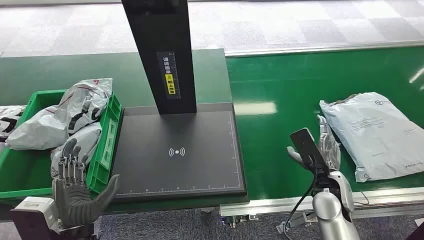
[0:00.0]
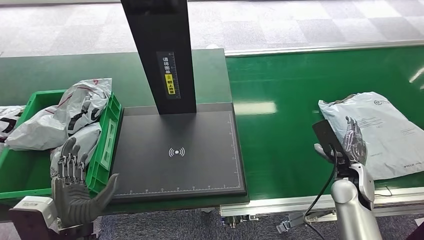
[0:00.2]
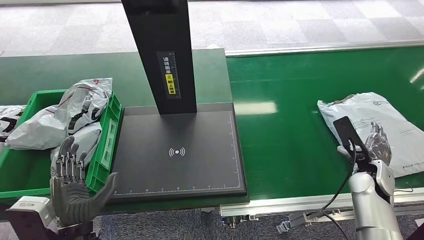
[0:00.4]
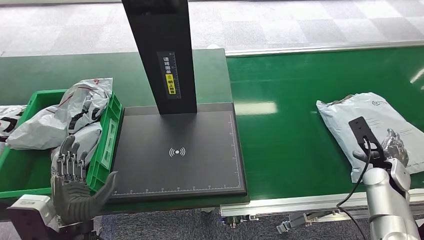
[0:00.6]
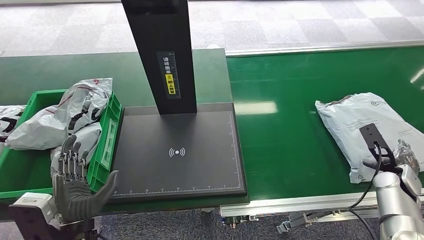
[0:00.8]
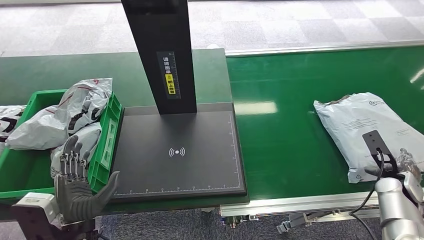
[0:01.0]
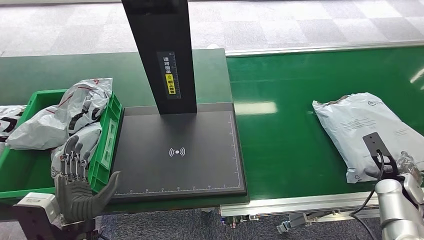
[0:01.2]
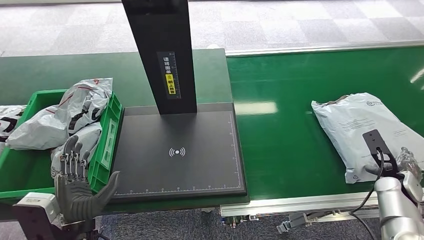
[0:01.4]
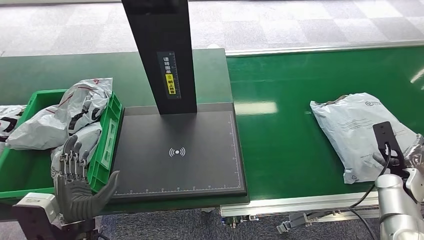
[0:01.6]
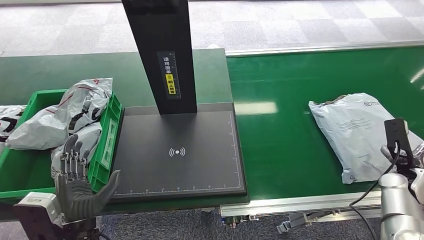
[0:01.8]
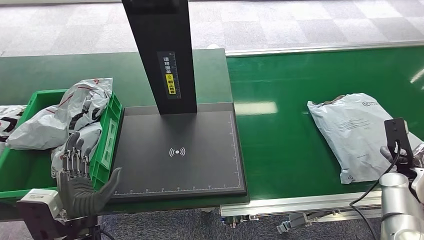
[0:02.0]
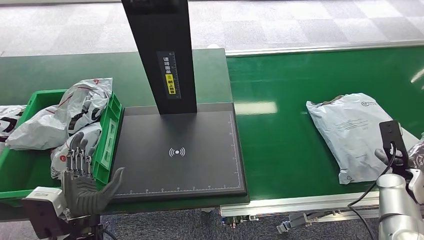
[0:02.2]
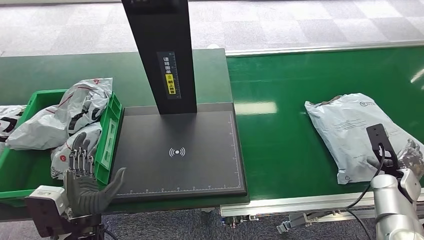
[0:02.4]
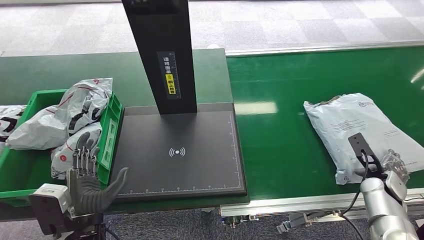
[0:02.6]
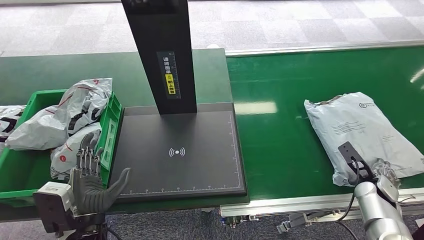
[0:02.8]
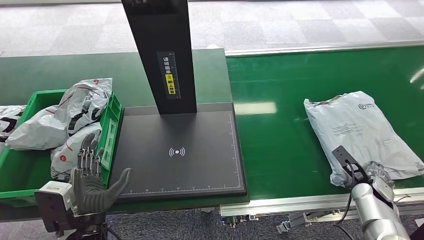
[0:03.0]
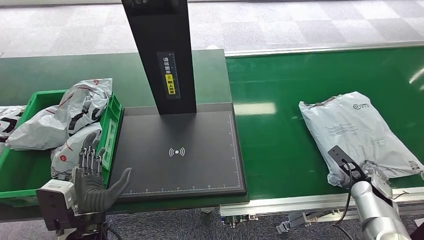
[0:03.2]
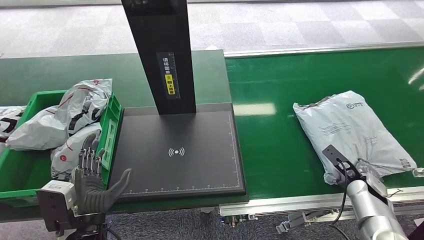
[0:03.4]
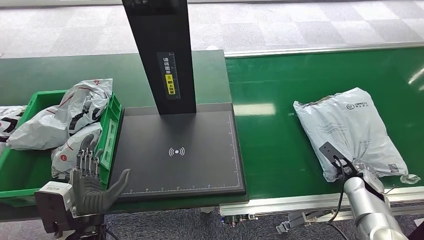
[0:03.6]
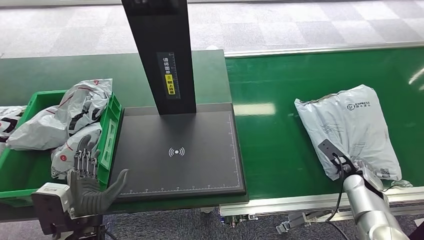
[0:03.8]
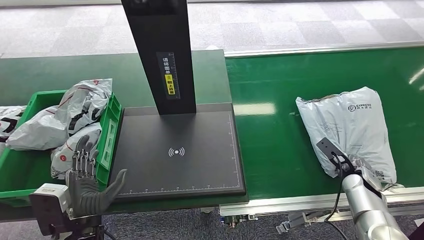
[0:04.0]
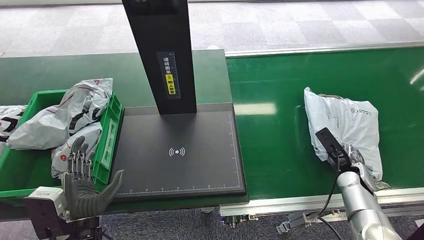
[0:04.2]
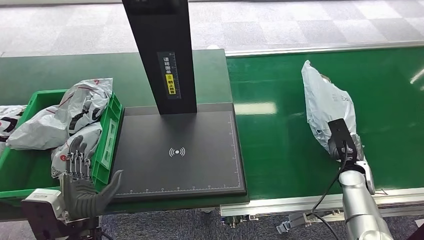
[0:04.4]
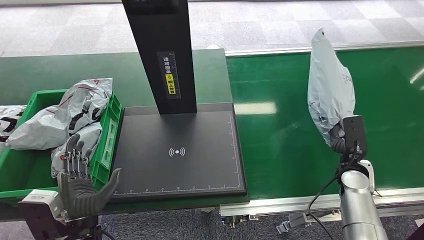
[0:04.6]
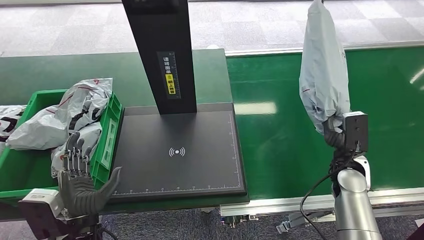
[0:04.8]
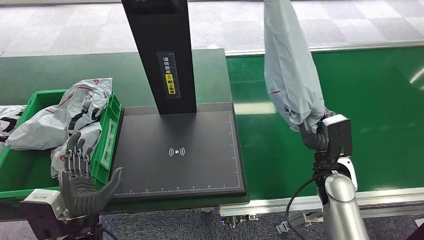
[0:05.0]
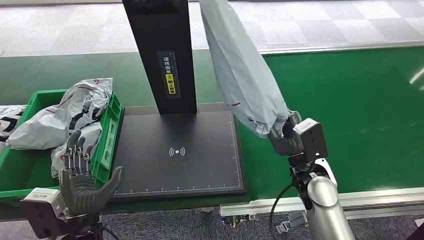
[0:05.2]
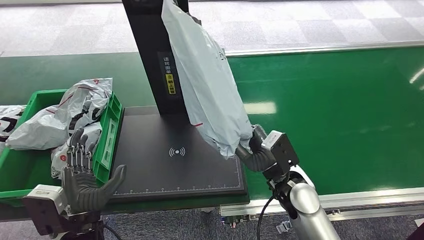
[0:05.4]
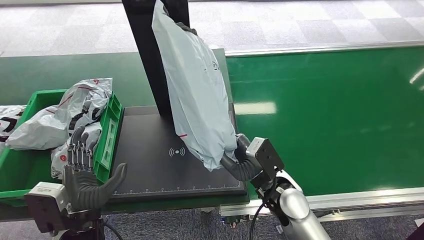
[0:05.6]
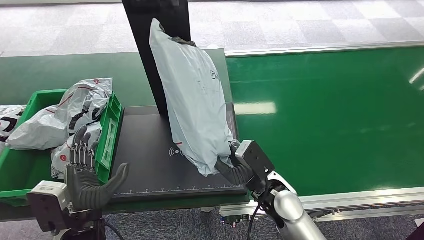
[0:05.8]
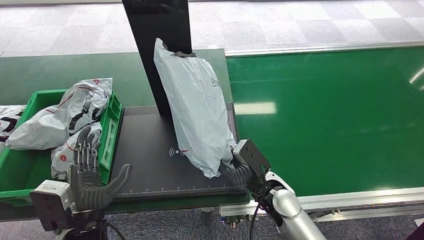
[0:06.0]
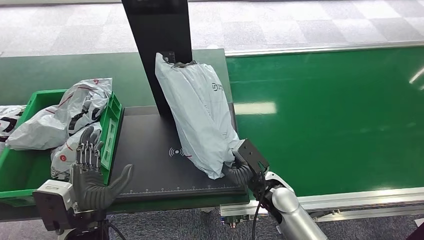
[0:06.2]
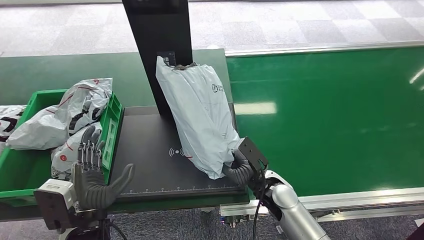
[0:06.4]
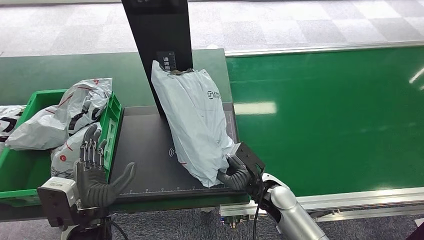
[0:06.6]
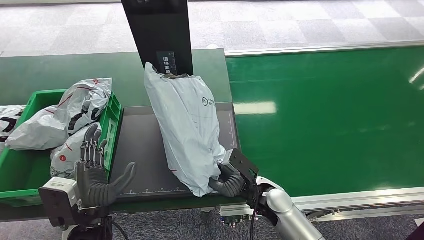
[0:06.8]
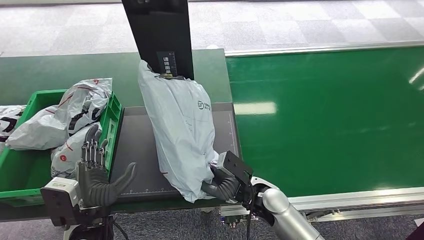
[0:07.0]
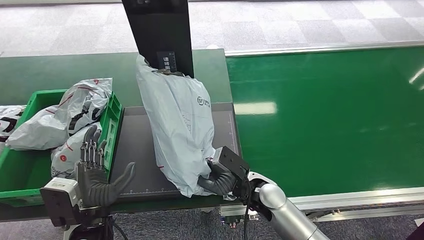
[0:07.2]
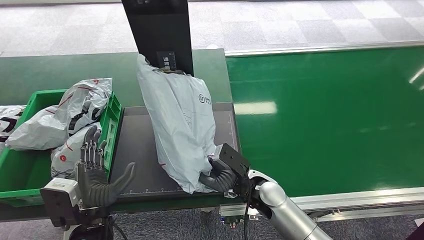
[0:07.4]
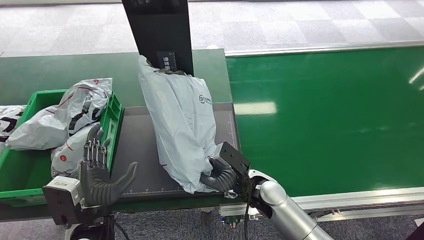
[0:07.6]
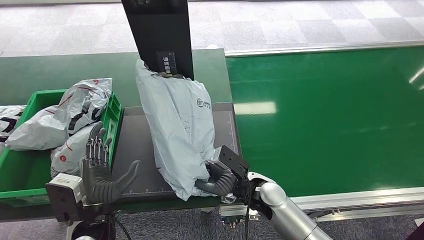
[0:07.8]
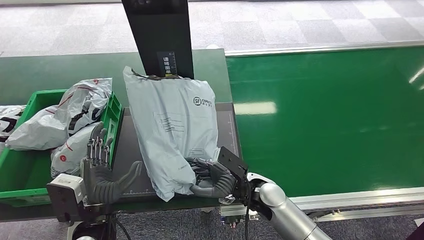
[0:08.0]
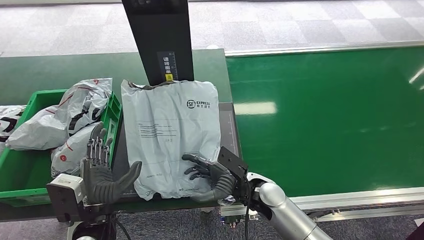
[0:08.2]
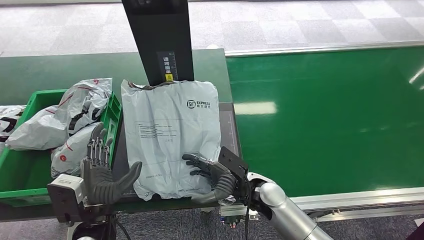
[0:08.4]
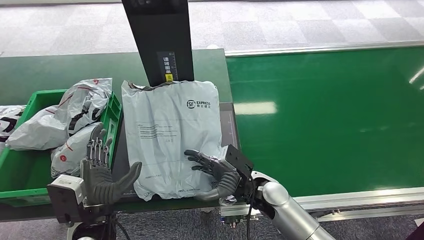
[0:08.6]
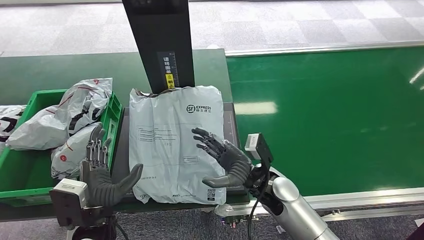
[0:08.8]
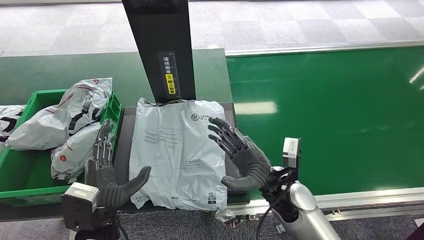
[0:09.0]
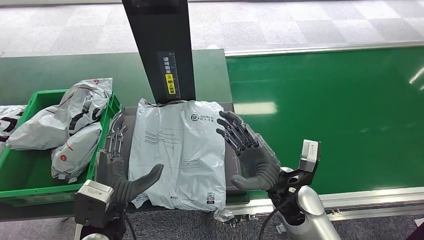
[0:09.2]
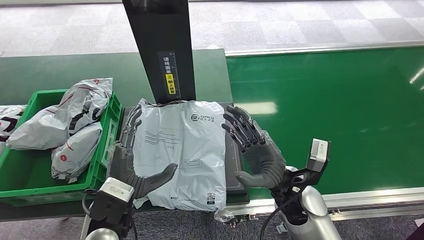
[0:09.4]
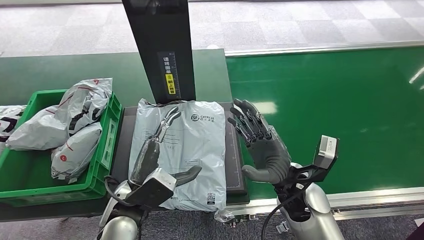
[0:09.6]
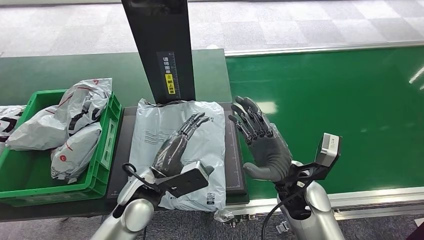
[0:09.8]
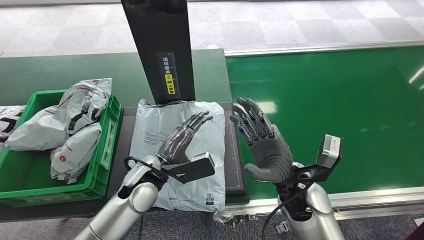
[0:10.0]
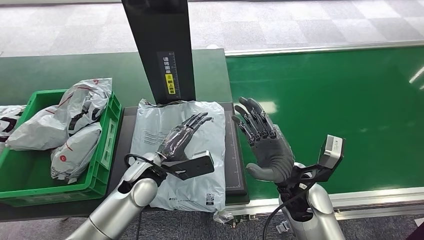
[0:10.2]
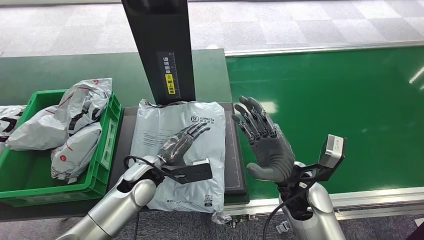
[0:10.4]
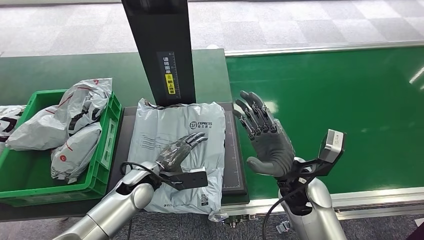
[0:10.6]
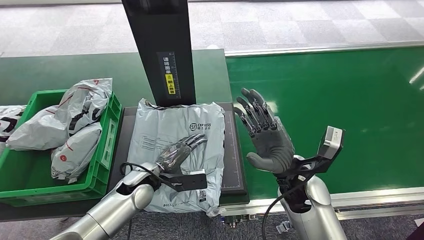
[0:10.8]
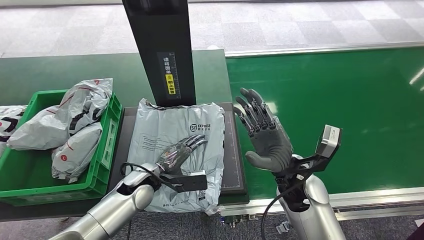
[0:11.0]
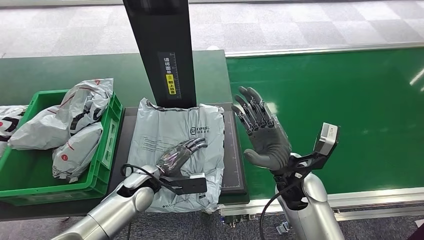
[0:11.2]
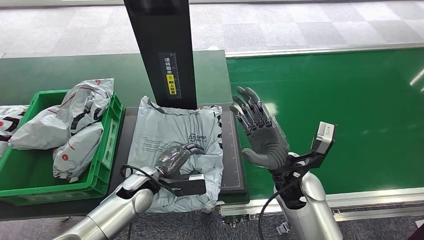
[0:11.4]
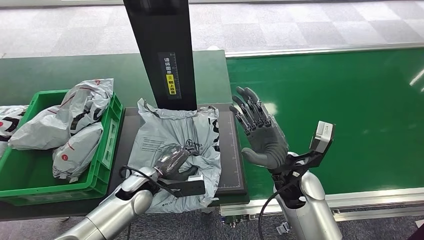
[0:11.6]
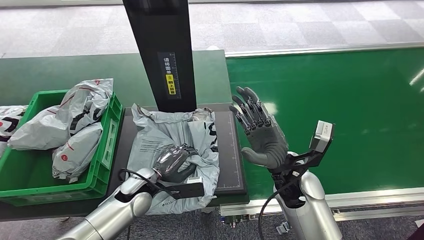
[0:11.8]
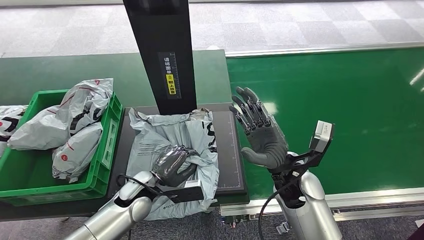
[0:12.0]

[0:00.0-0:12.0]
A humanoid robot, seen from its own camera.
Step, 0:00.0 to 0:05.2: Pick up the package from the conveyor belt.
Step, 0:05.4 to 0:10.0: Place the package onto the inbound machine.
0:01.6 to 0:03.0: The right hand heads downward, covering some 5 cm.
0:03.0 to 0:04.4: The right hand moves approximately 5 cm.
0:07.6 to 0:09.0: The right hand shifts by approximately 5 cm.
0:09.0 to 0:10.4: The left hand travels forward by approximately 15 cm.
0:10.4 to 0:12.0: The left hand changes place by roughly 5 cm.

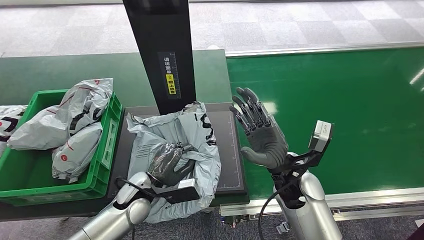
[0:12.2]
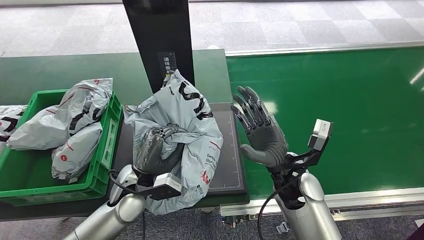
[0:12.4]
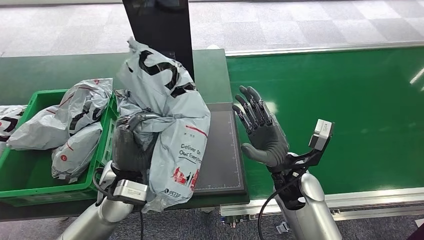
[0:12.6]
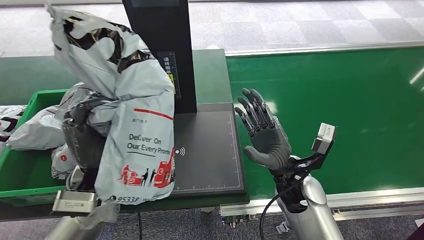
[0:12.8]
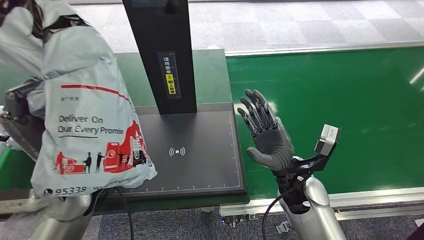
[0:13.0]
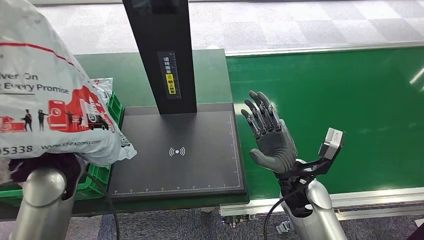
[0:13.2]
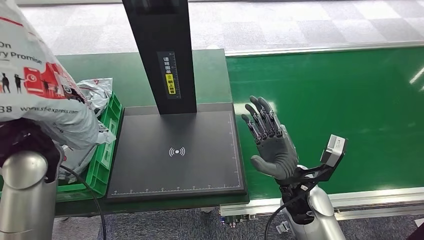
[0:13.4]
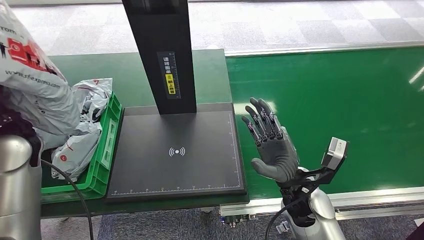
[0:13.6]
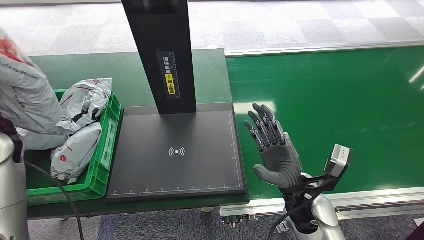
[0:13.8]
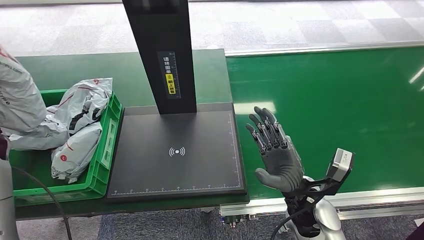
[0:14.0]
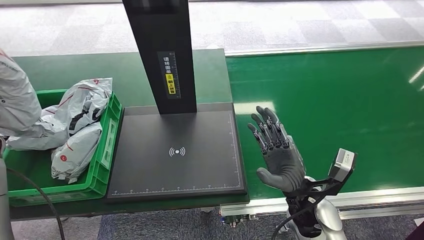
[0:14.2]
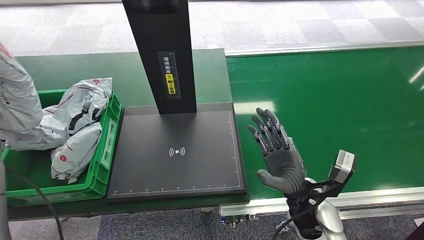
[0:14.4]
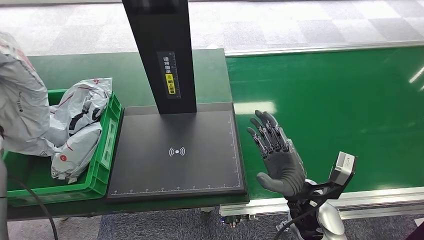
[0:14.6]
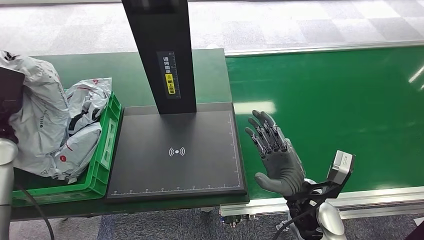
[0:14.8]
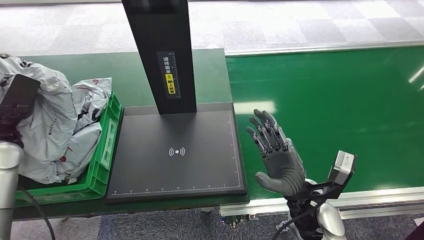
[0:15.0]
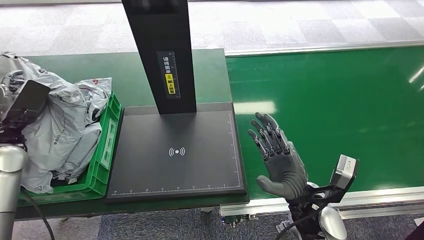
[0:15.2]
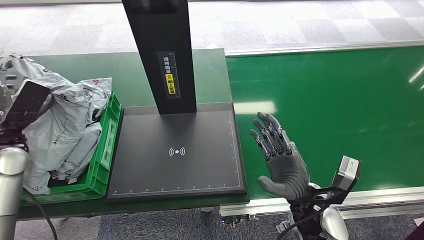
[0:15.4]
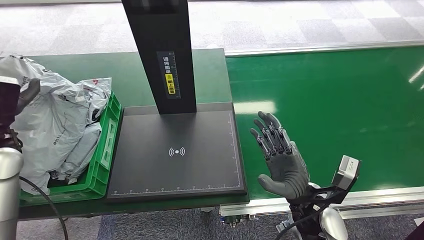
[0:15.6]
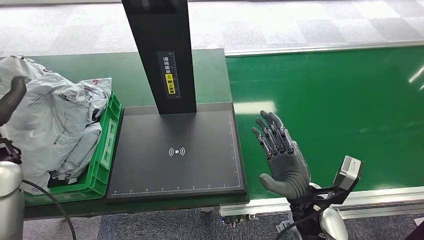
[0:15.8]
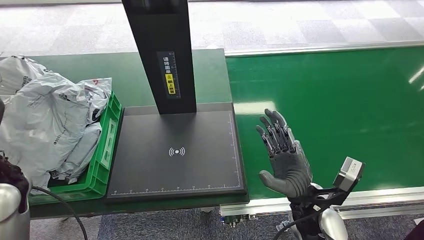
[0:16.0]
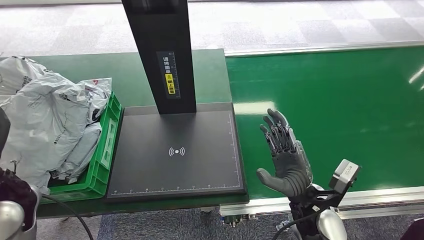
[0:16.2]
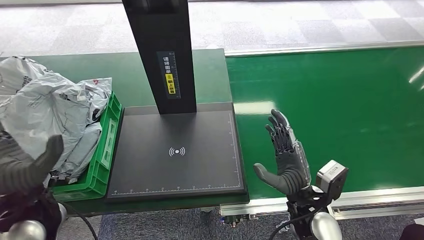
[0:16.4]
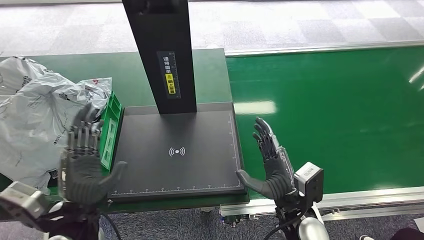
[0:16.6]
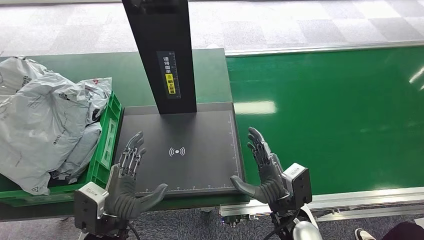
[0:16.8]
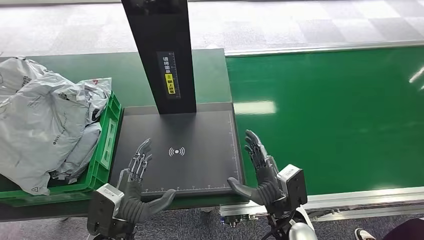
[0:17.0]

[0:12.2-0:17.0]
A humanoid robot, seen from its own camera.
Step, 0:13.0 to 0:16.8: Place the package into the parcel locker.
0:13.8 to 0:15.4: The left hand is displaced downward and to the left by roughly 10 cm.
0:15.4 to 0:17.0: The left hand moves to the right and backward, roughly 35 cm. The right hand moves roughly 5 cm.
